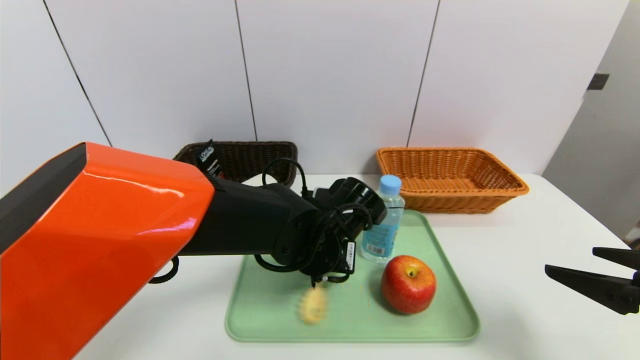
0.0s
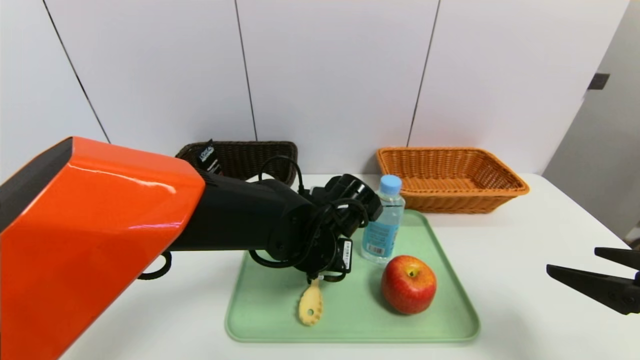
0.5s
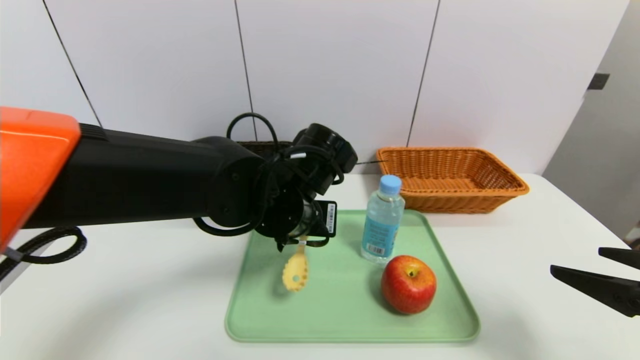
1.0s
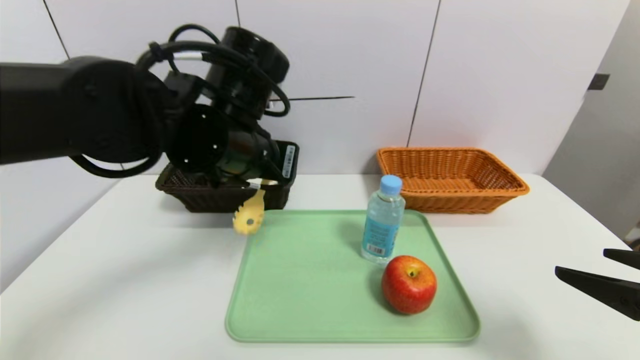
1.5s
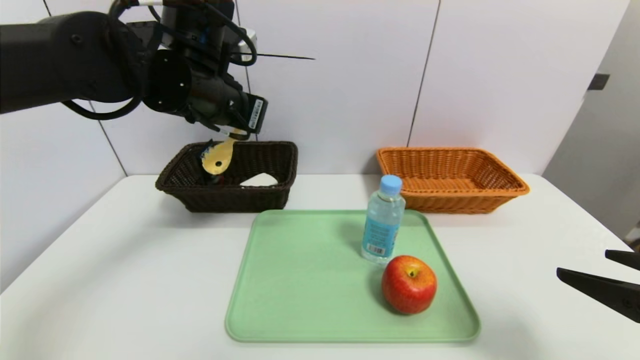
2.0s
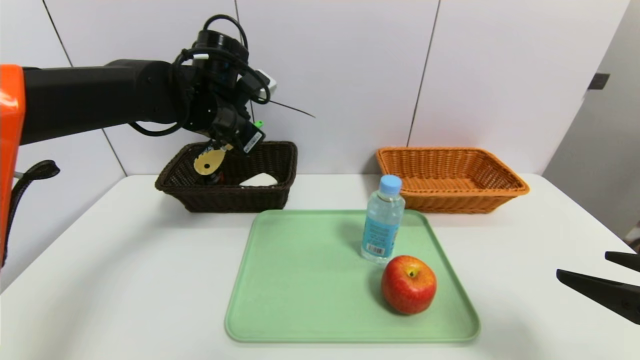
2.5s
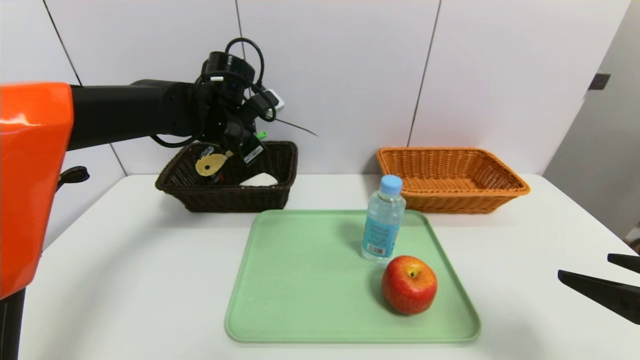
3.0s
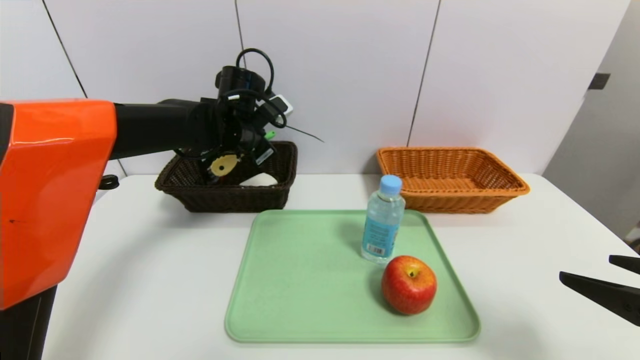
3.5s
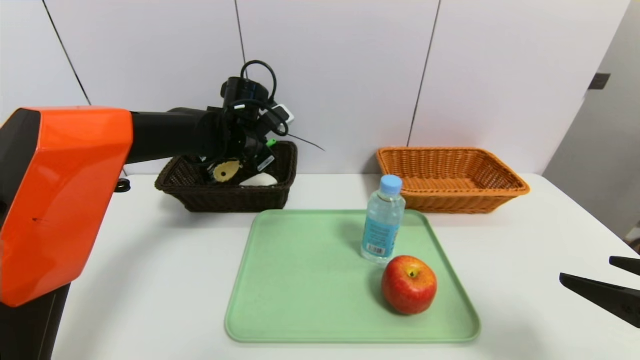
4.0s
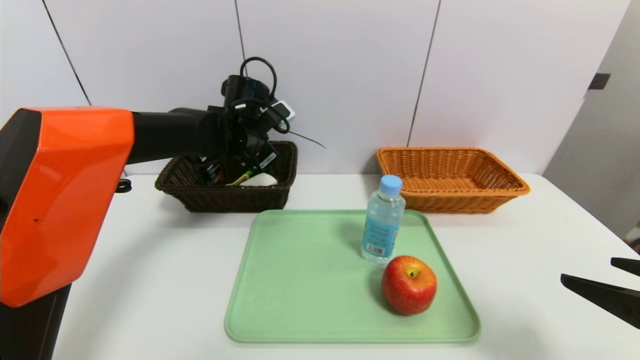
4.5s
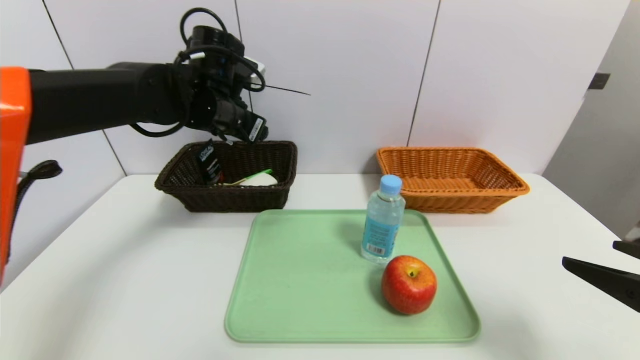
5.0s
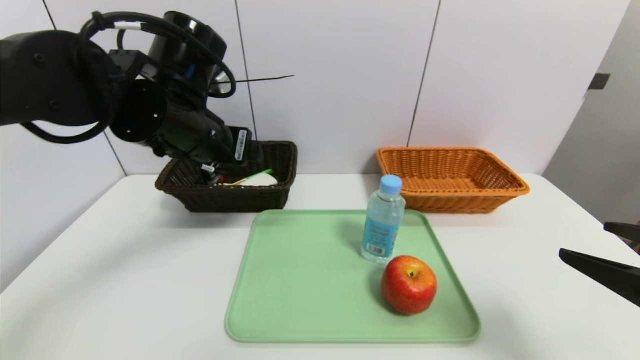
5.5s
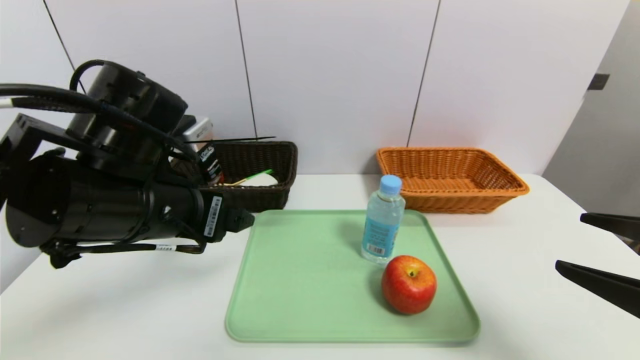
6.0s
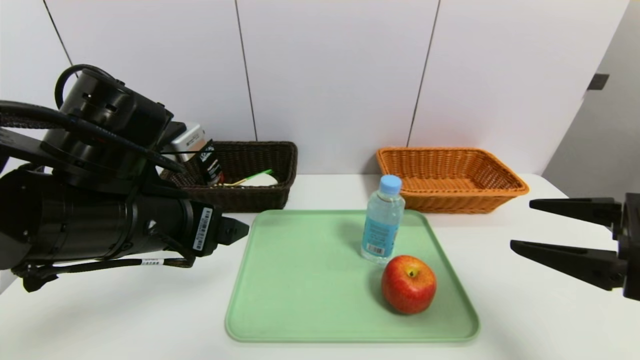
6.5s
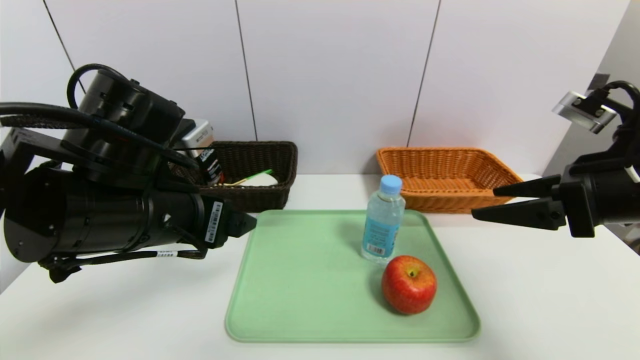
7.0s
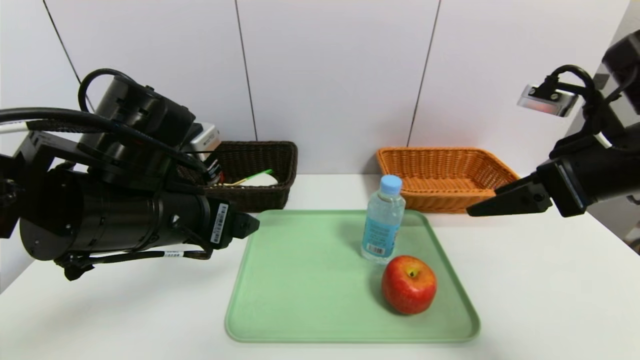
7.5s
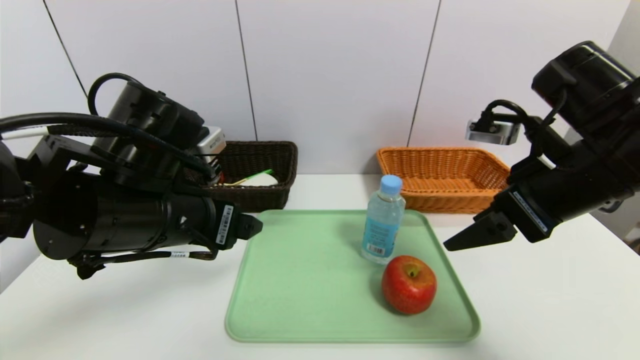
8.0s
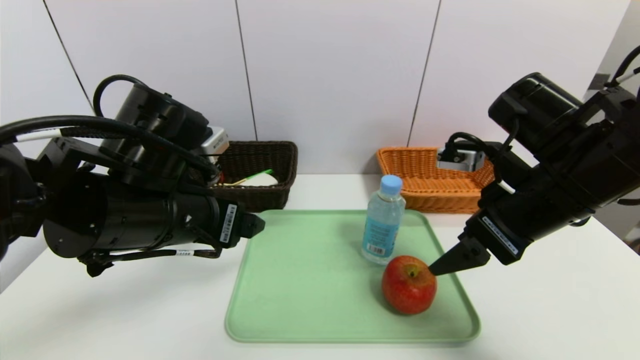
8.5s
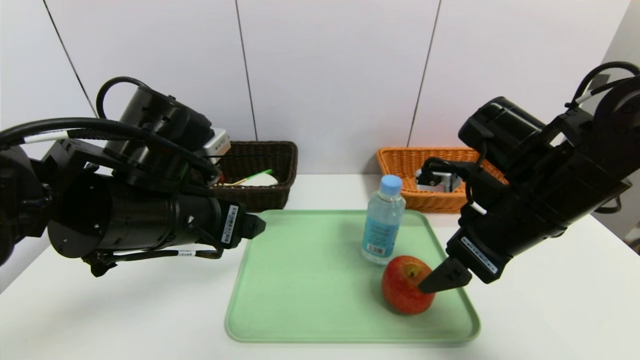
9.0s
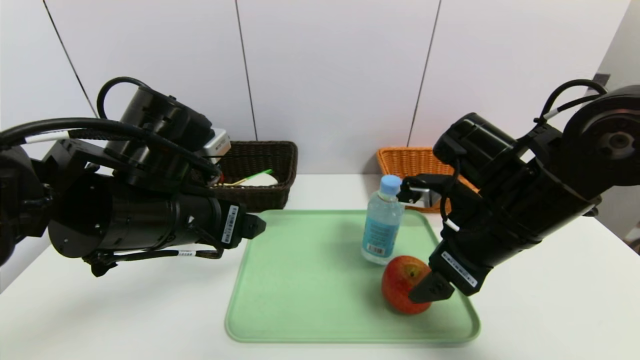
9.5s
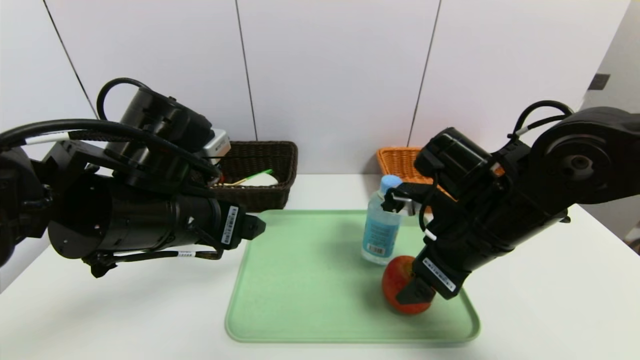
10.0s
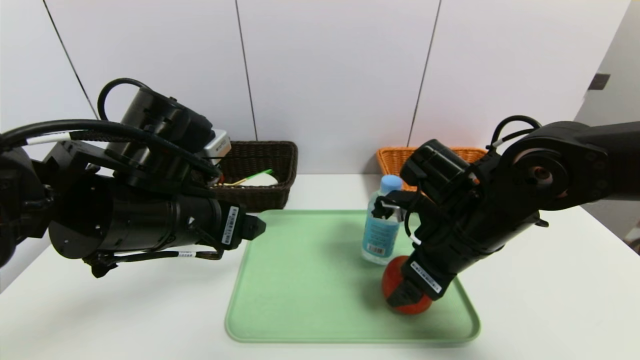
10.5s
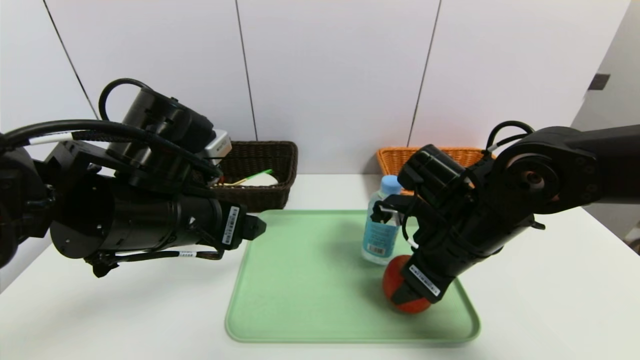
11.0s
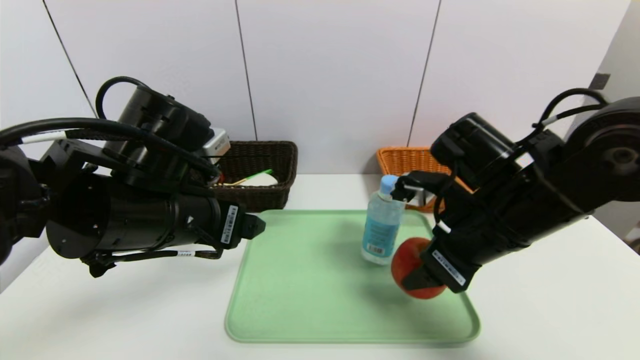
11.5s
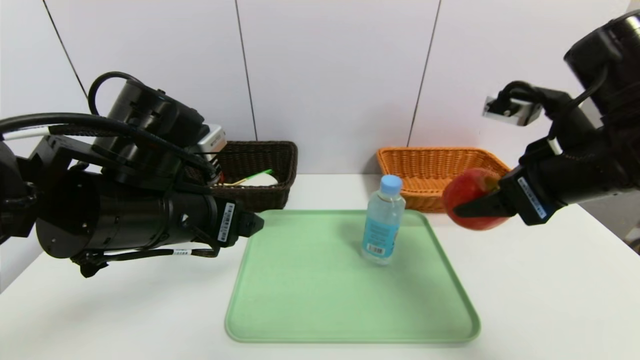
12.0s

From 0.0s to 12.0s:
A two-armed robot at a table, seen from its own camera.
Task of the whole recording: place the food in the right basket with the right gripper, and place the non food items in the left basket with the left gripper.
Step, from 0.0s to 4.5s: Grasp the back scratcher and put it in the left basket.
From 0.0s to 2.0s: The left gripper moves upward and to the left, approximately 25 cm.
From 2.0s to 4.0s: The left gripper is displaced forward and downward by roughly 15 cm.
From 4.0s to 6.0s: The left gripper is displaced backward by some 25 cm, and opens its fingers.
From 6.0s to 8.0s: The right gripper moves forward and to the left, approximately 15 cm.
From 8.0s to 10.0s: The right gripper is displaced downward and to the left by about 10 cm.
From 10.0s to 12.0s: The right gripper is displaced upward and to the right by approximately 10 cm, and closes.

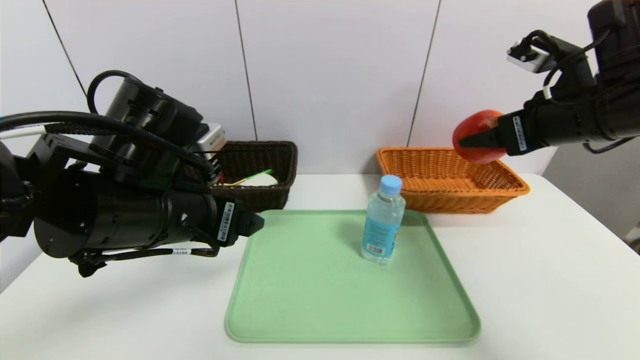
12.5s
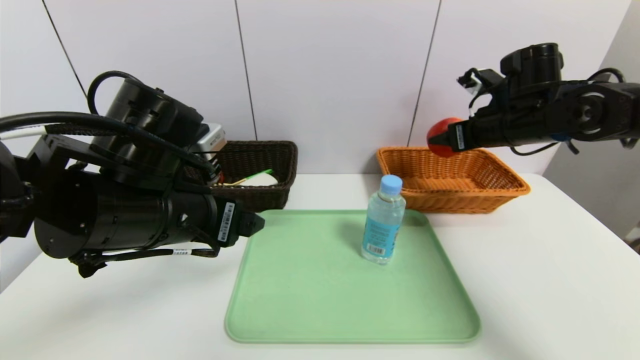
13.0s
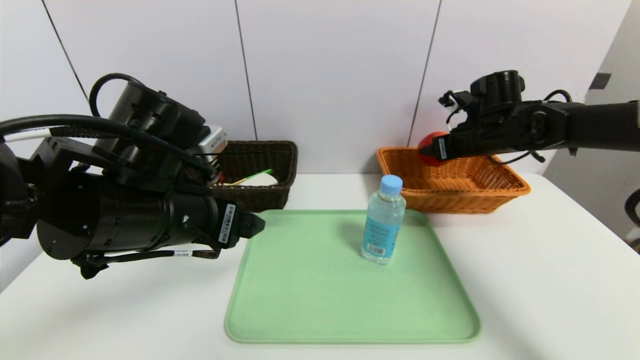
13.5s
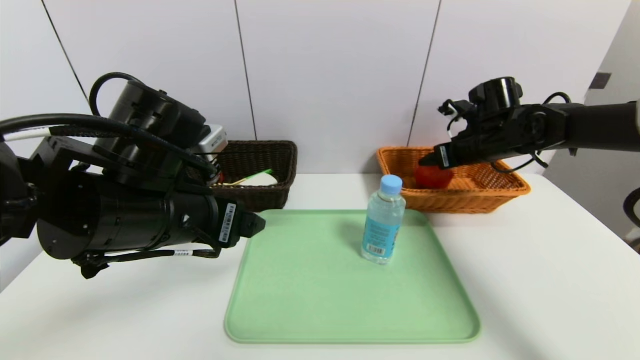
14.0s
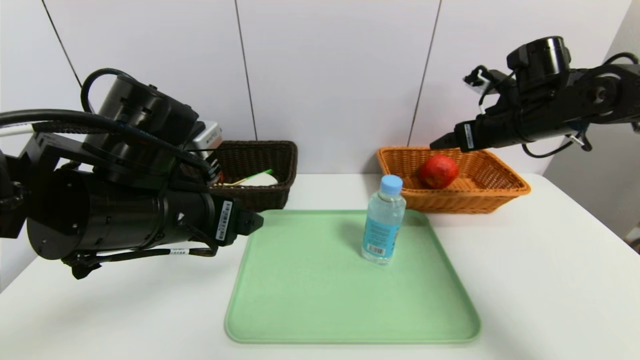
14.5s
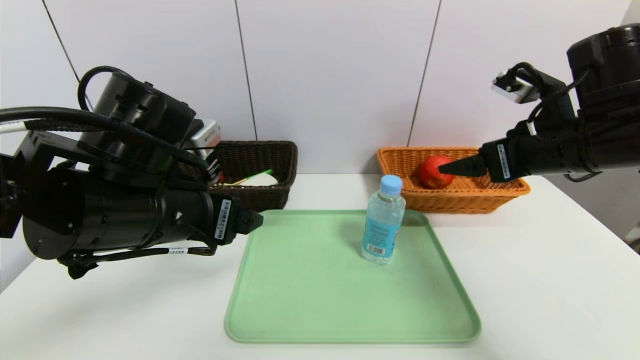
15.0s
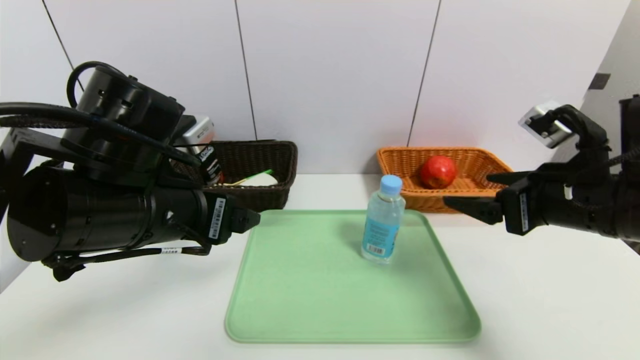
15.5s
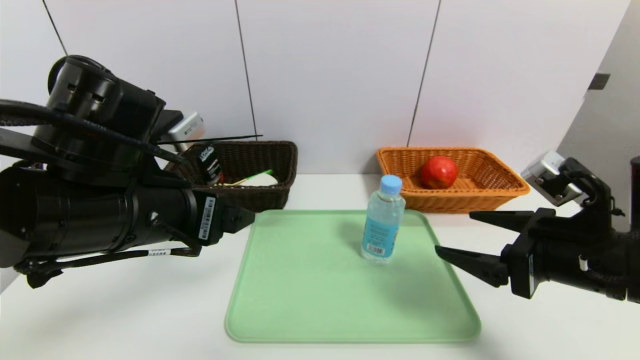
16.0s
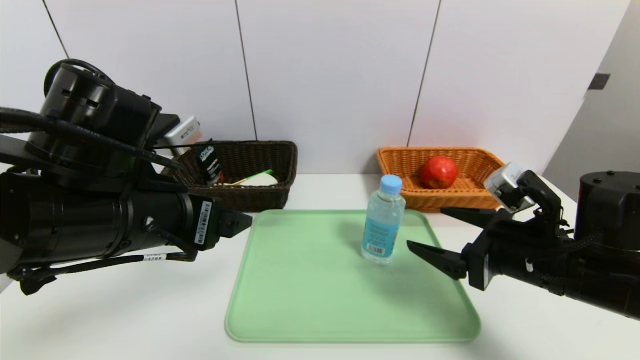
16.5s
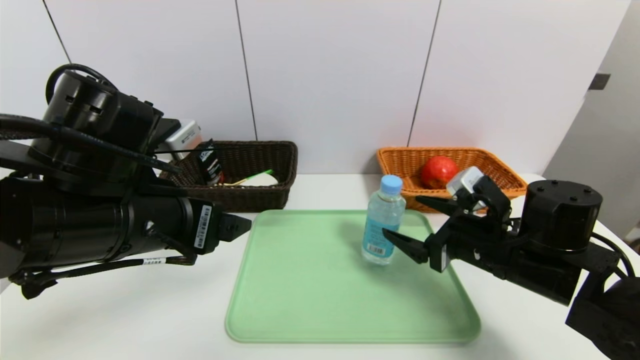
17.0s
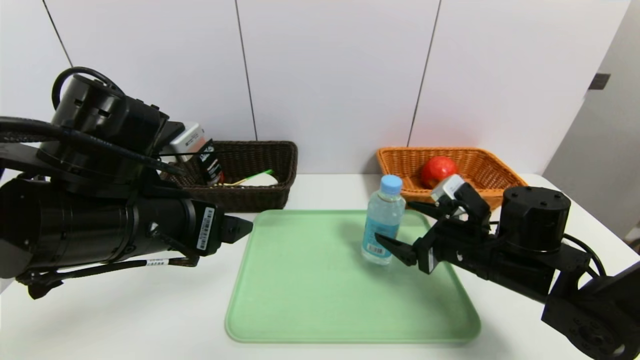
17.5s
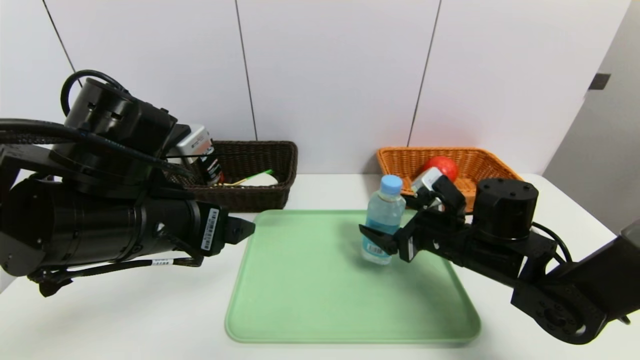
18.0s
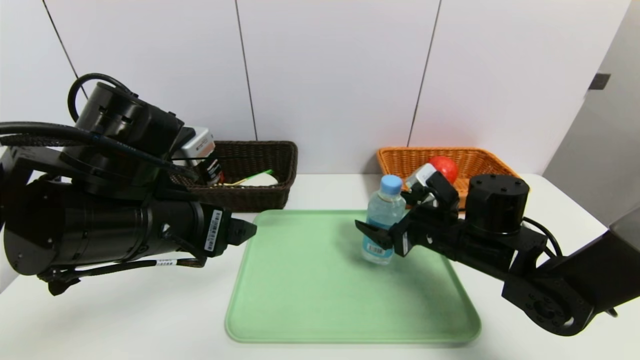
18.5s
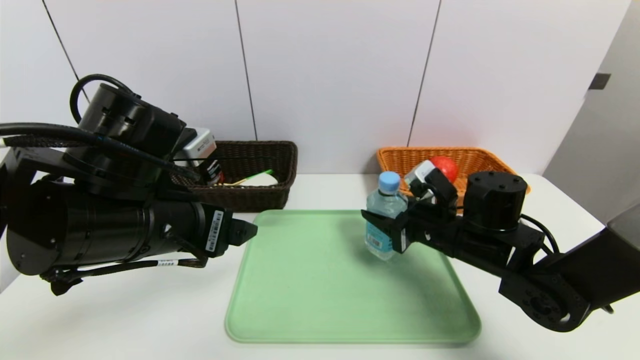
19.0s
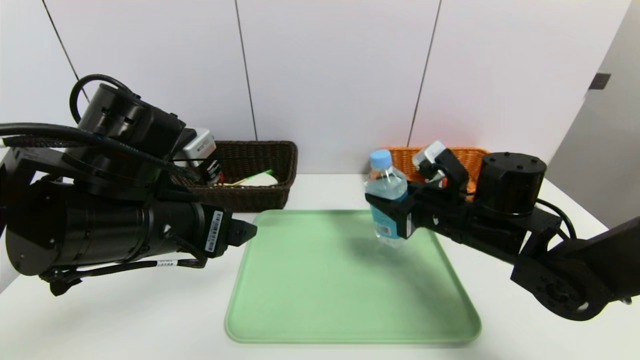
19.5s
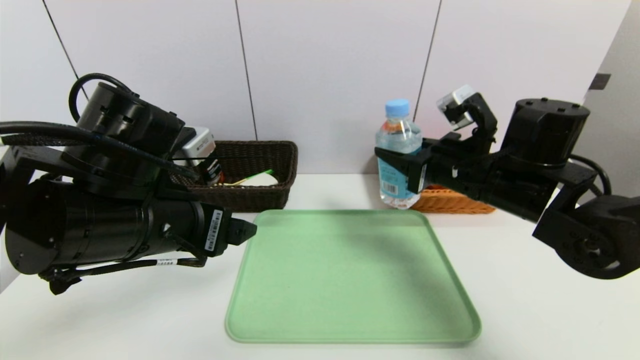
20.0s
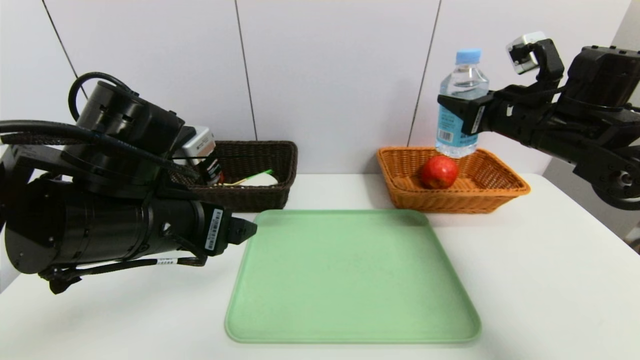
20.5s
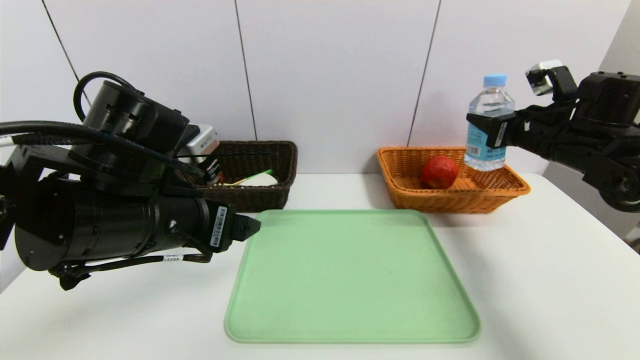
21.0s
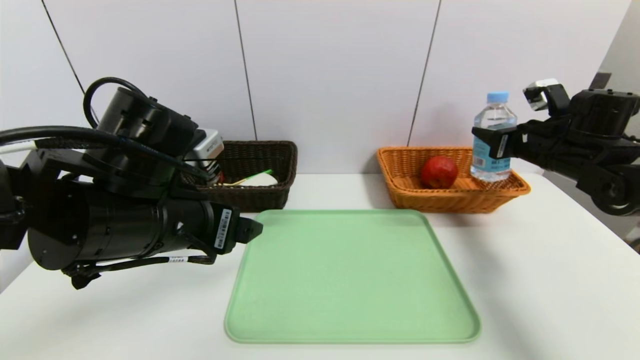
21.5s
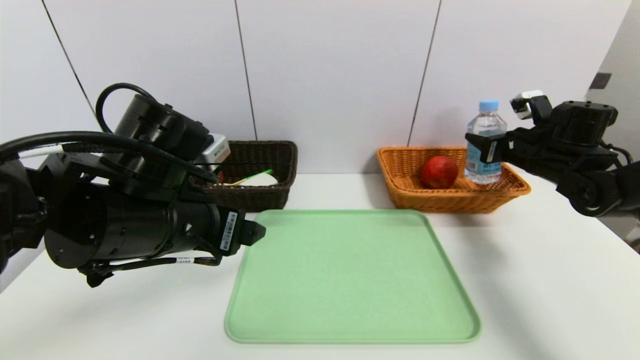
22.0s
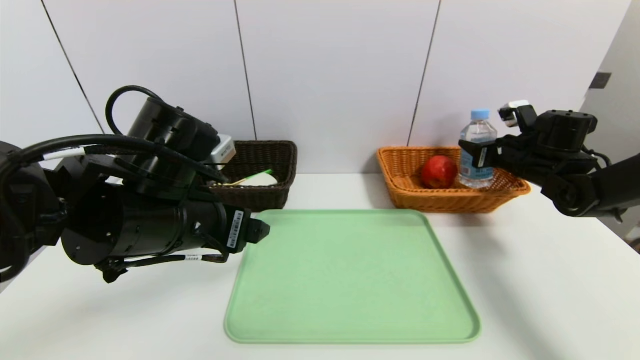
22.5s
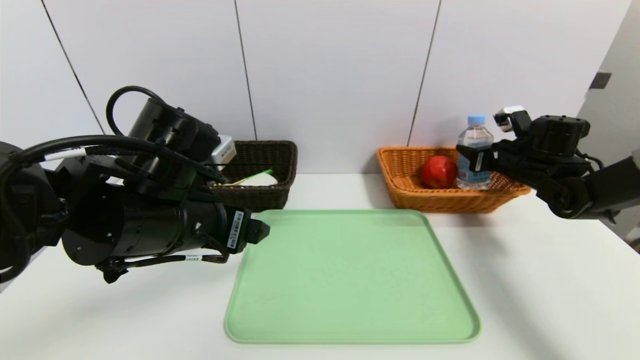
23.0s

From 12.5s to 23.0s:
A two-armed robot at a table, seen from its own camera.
Task of the whole recording: place the food in the right basket with the right gripper, and place the non food items in the left basket with the left gripper.
From 12.5s to 14.5s: The right gripper is displaced forward by roughly 10 cm, and opens.
From 14.5s to 16.5s: The right gripper travels backward and downward by about 20 cm.
From 16.5s to 19.0s: The right gripper is displaced forward and to the left by roughly 10 cm, and closes.
From 19.0s to 21.0s: The right gripper is displaced to the right, upward and forward by roughly 20 cm.
From 21.0s to 23.0s: The right gripper is displaced downward and forward by some 10 cm.
